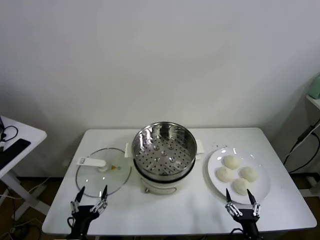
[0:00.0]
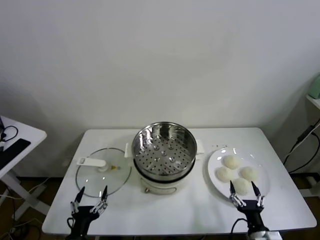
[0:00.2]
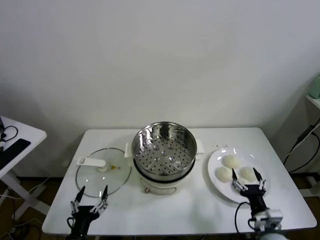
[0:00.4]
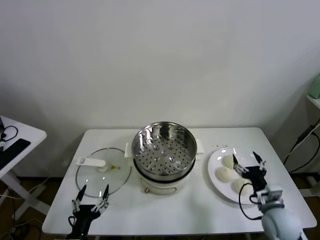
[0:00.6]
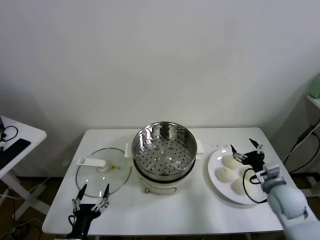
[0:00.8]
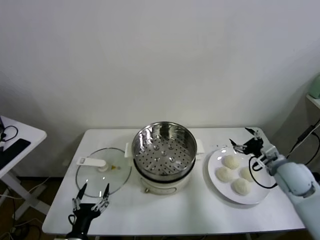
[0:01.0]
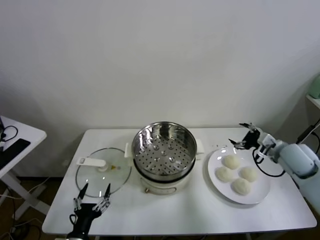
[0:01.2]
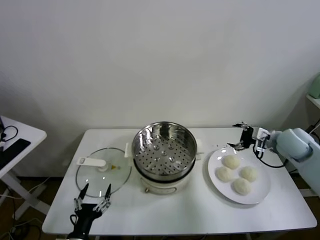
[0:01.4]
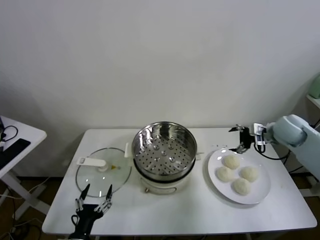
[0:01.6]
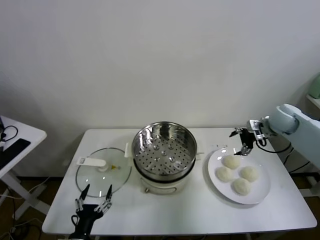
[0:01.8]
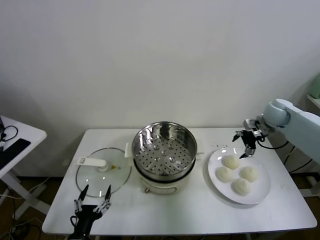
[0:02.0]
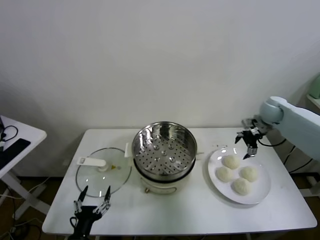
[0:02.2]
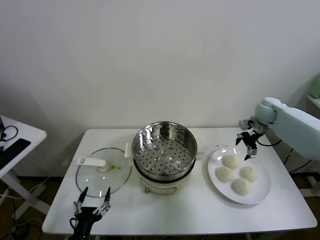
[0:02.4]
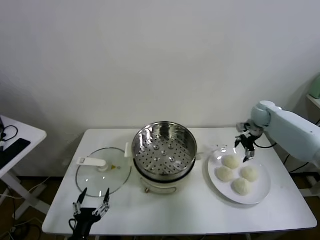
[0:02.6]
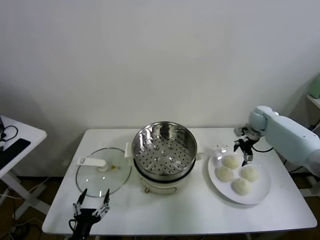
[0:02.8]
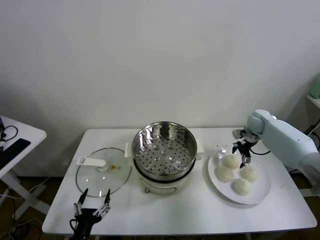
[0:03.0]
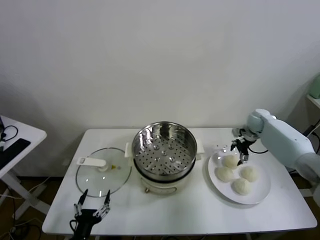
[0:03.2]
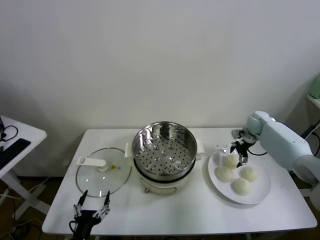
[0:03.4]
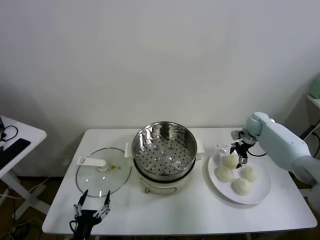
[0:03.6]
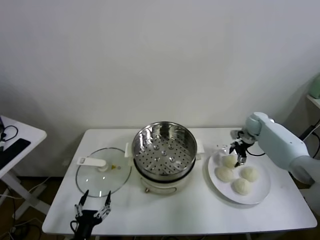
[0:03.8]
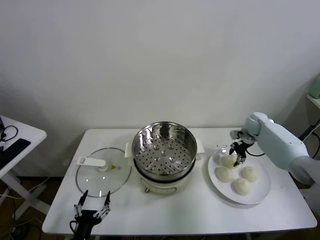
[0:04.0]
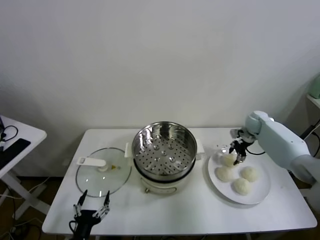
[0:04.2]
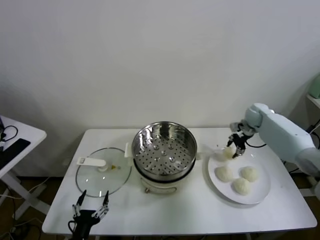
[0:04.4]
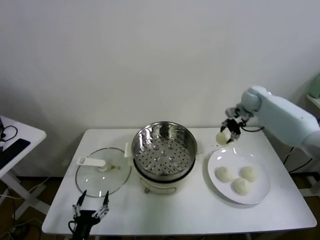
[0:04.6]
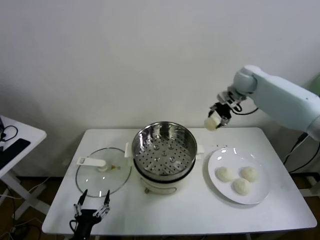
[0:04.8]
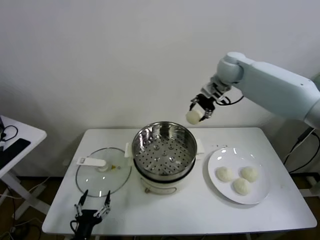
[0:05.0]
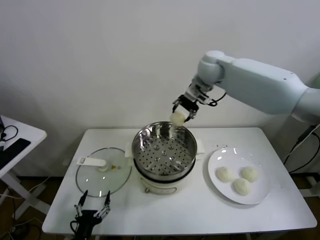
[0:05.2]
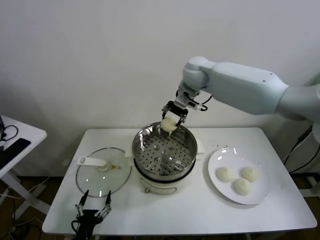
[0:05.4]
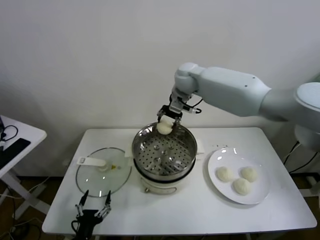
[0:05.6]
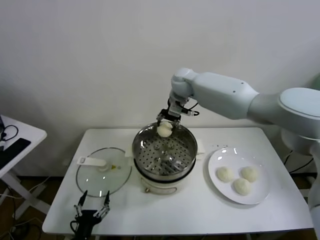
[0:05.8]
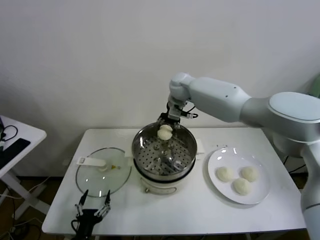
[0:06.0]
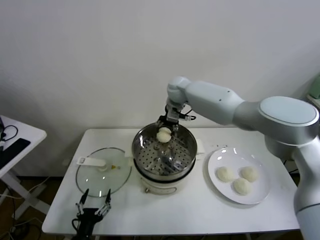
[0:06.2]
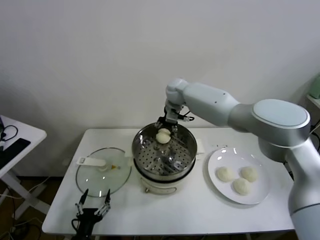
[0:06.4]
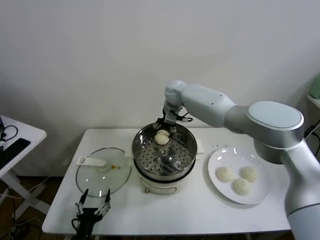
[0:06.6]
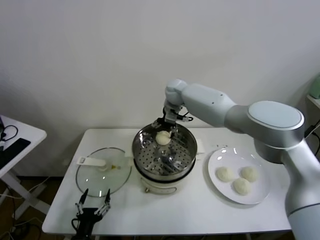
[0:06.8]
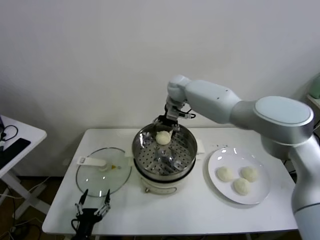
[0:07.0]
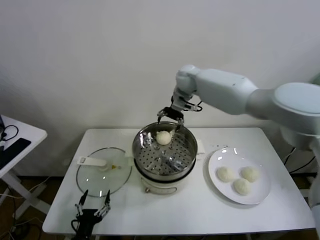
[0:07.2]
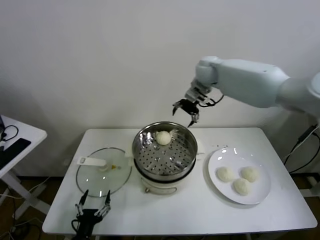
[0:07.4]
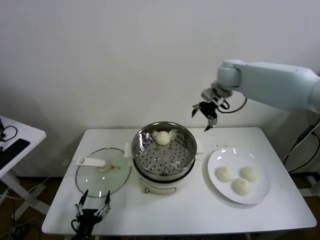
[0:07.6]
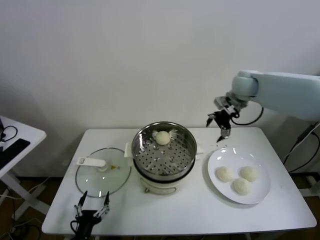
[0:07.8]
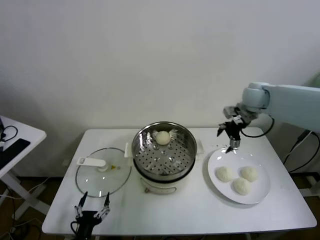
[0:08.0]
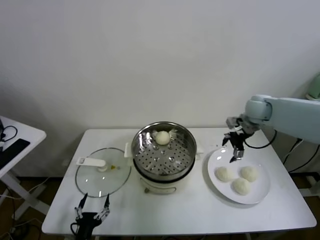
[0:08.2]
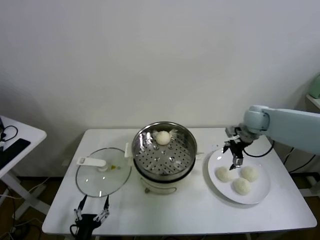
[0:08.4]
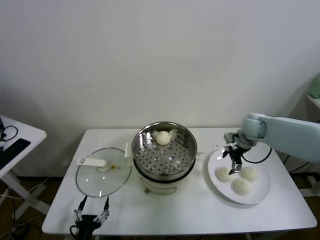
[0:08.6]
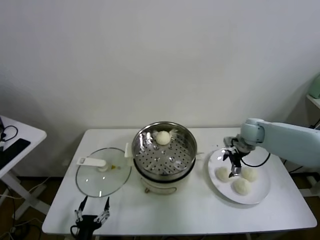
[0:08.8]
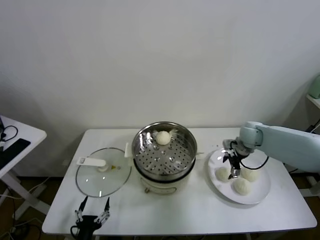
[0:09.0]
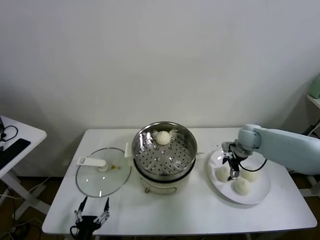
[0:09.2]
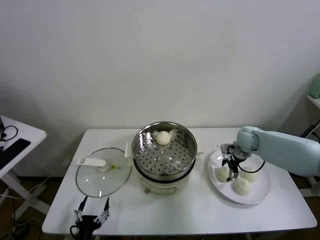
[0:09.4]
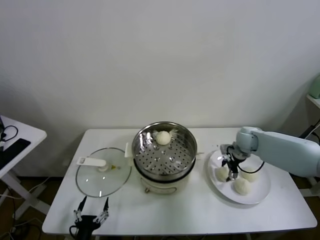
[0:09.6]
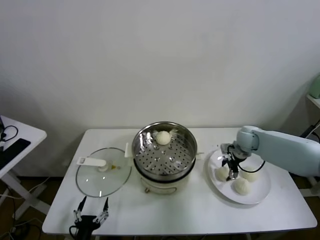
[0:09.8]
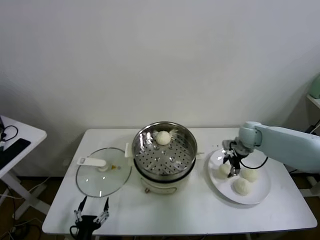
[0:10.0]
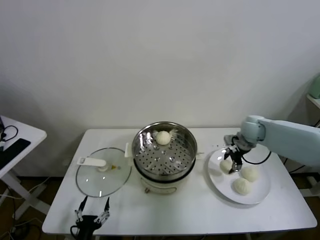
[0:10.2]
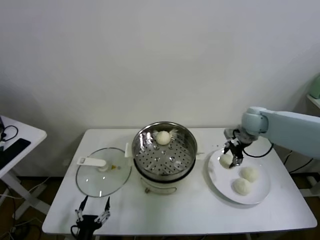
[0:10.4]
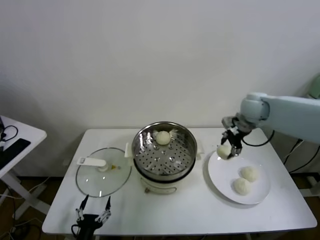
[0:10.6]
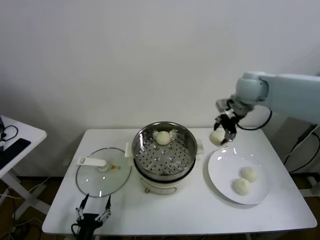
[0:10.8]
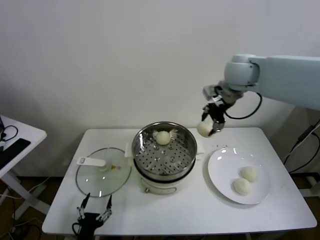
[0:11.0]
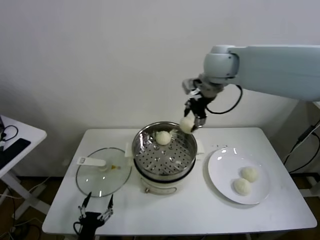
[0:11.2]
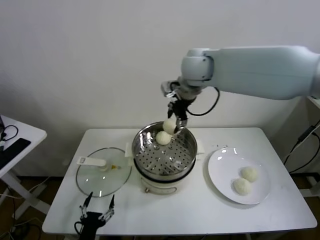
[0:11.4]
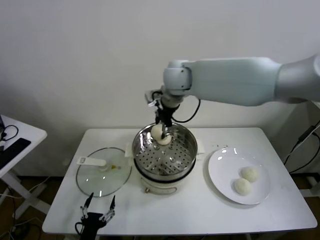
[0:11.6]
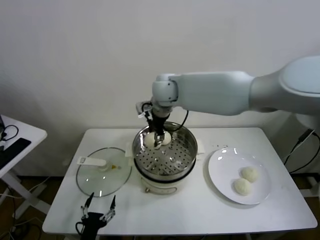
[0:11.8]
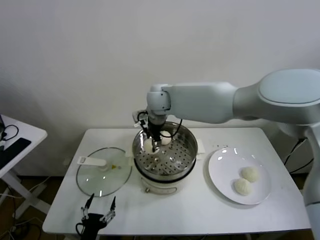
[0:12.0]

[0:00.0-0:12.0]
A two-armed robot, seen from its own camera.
Task of the whole recording: take steamed baozi put them in steamer.
Step, 0:00.0 to 0:03.8: Grasp the baozi in the plate with right gripper.
Step, 0:04.0 to 0:06.6: Place the baozi on the steamer with right gripper.
Step, 0:06.8 to 0:09.4: Grasp the baozi in the plate with right gripper.
0:01.6 to 0:03.0: The right gripper travels forward and downward by about 15 cm.
0:03.0 to 0:04.4: The right gripper heads upward, covering approximately 5 cm, and closes its fingers.
0:04.4 to 0:06.0: The right gripper travels to the left by some 30 cm.
0:06.0 to 0:07.6: The right gripper is displaced to the right by some 20 cm, and opens.
0:07.6 to 0:09.0: The right gripper shifts approximately 25 cm downward and to the right.
0:09.0 to 0:10.4: The right gripper is displaced upward by about 10 cm, and closes up.
0:10.4 to 0:12.0: The right gripper is displaced to the left by some 35 cm.

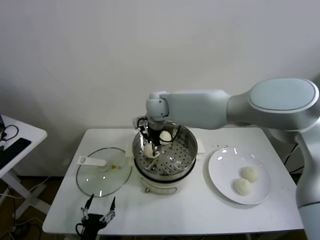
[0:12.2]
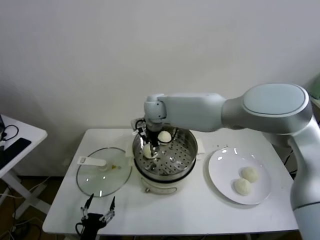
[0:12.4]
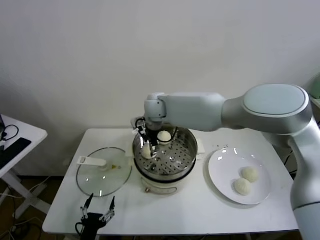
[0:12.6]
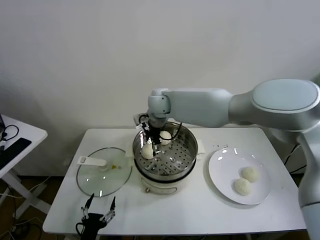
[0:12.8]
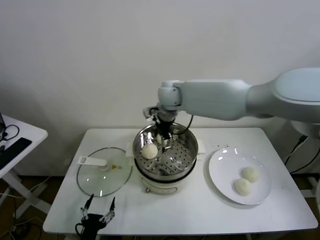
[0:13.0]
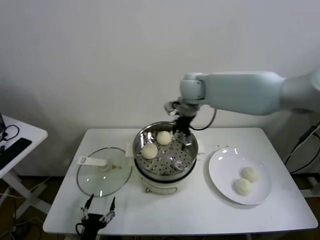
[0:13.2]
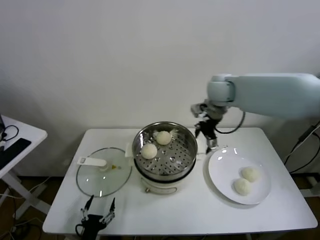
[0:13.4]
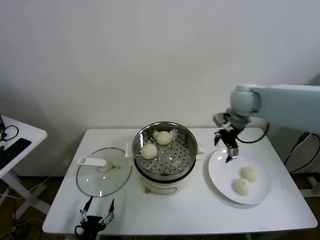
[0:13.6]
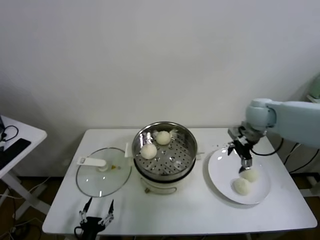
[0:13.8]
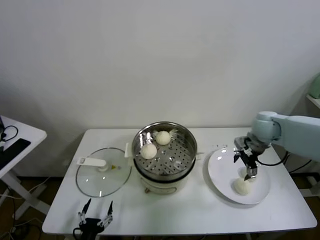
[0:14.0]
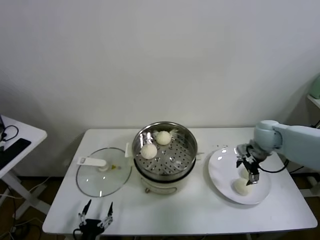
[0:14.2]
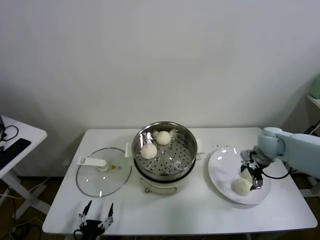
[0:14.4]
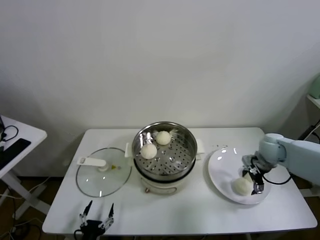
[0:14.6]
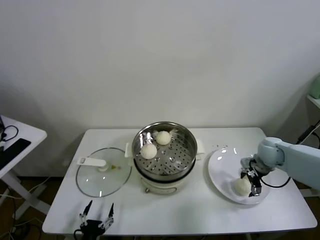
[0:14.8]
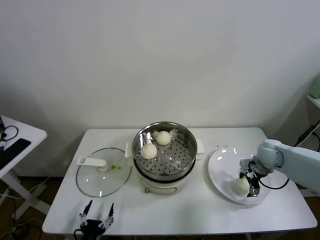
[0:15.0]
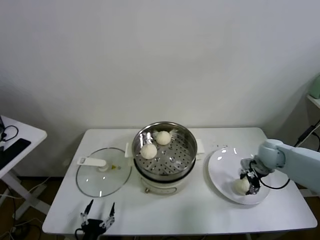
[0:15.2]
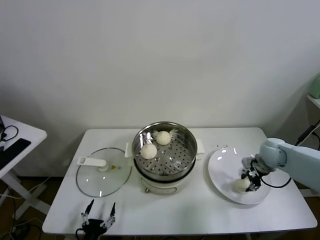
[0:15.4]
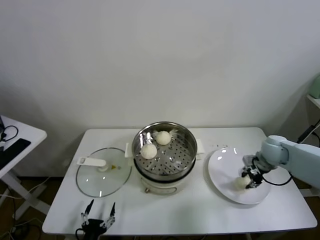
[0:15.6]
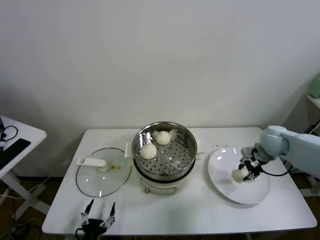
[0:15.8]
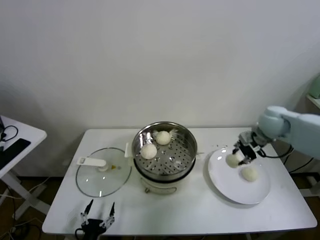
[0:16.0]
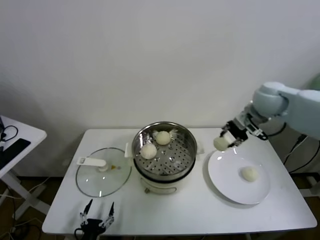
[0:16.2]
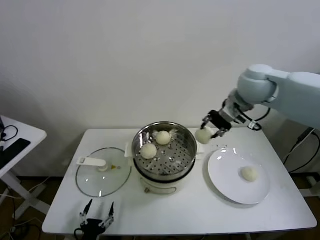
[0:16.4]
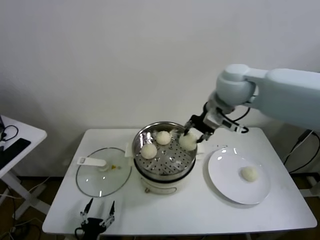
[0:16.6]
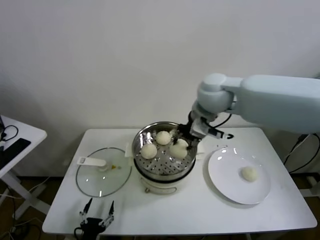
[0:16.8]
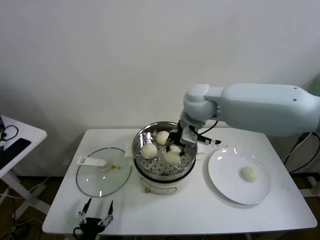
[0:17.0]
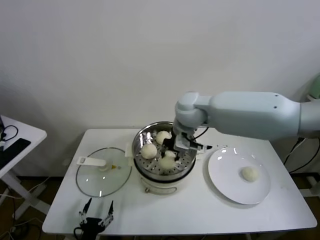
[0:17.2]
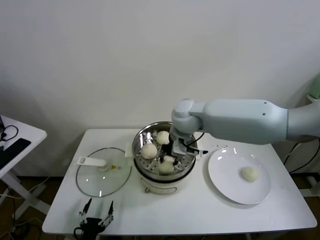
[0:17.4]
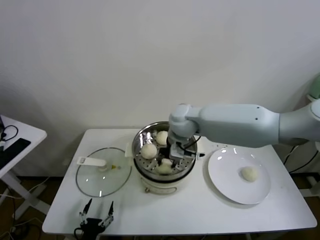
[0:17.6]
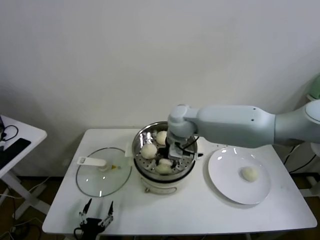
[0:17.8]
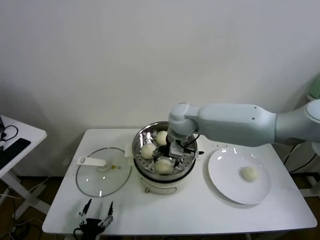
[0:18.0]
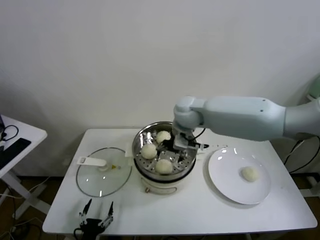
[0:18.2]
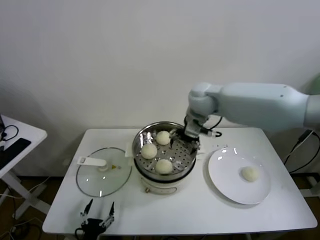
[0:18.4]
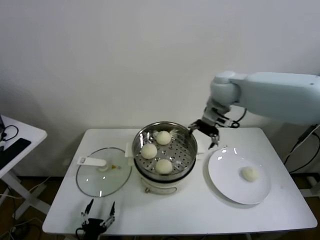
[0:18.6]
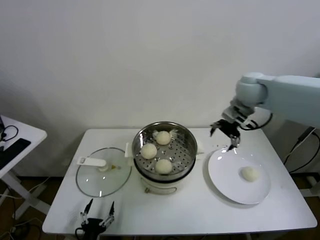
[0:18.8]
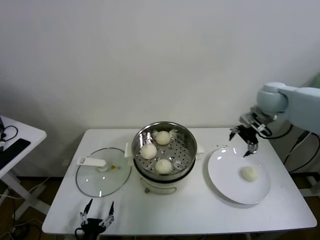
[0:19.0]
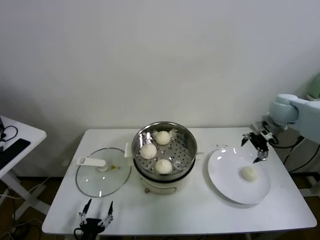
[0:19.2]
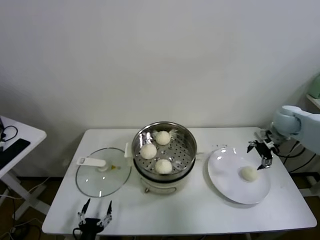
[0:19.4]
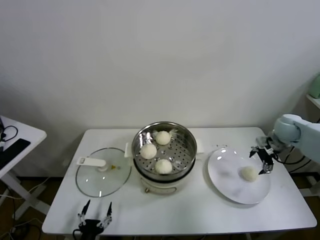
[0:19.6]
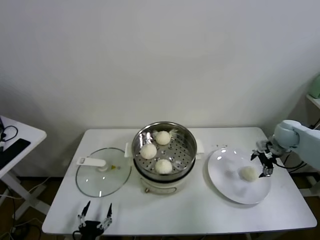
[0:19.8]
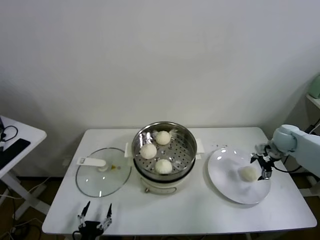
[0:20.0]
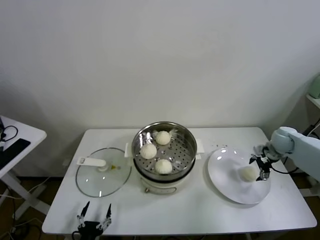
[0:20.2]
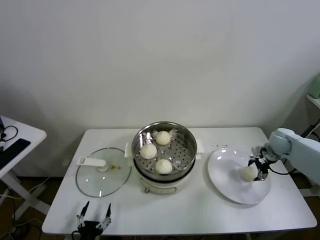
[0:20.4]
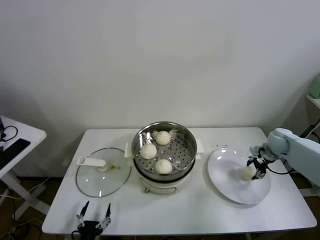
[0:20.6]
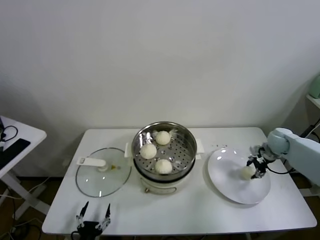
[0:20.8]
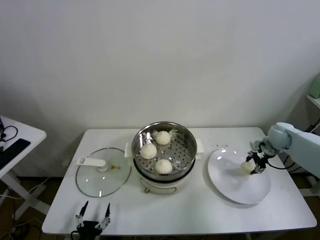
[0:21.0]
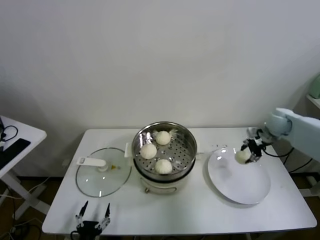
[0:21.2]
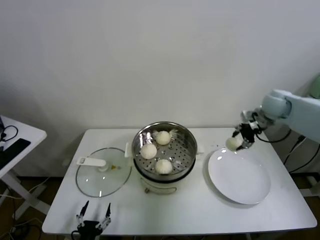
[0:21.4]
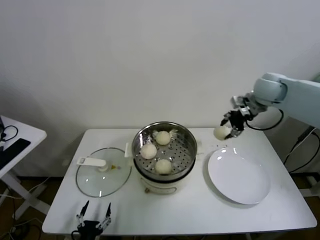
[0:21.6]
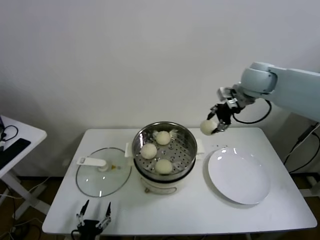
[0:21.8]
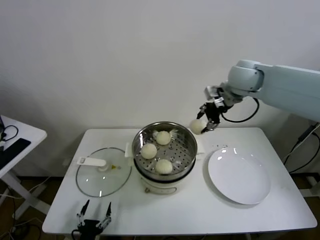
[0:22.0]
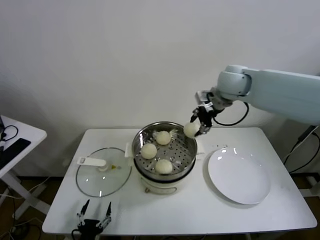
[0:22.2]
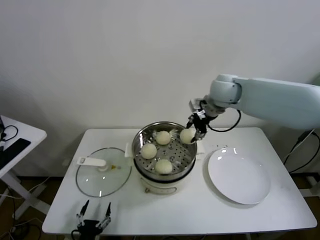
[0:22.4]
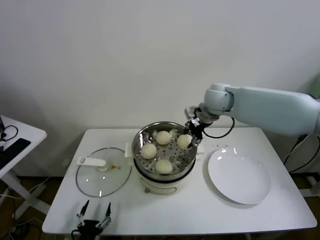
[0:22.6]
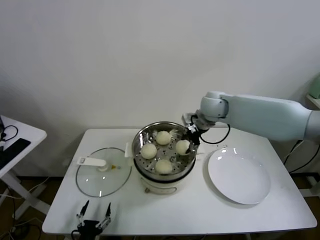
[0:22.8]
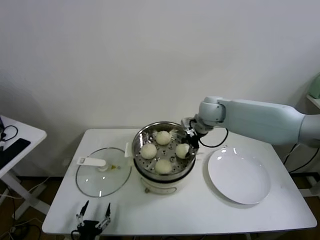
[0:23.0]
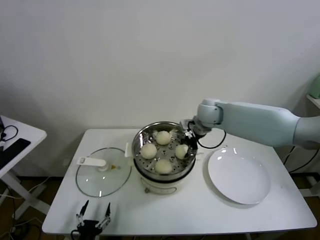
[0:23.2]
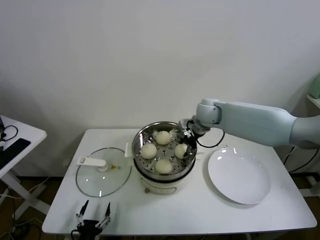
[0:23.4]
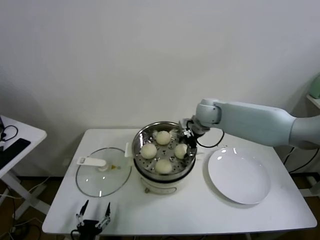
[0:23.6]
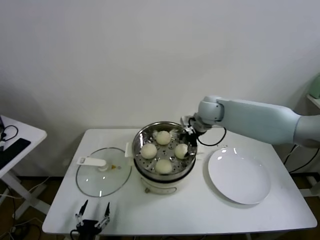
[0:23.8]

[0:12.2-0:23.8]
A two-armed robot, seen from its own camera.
Task of the whole recording: take steamed baozi put them in steamer.
Step, 0:12.8 to 0:15.2: Grasp the baozi in the plate with right gripper.
Step, 0:15.4 to 0:17.8: Place the baozi on the steamer with right gripper.
Step, 0:18.0 to 0:20.4: Grasp the baozi in the plate with right gripper.
Step, 0:20.6 to 0:23.6: Place the baozi on the steamer with right gripper.
0:12.2 to 0:13.6: The right gripper travels to the right by some 30 cm, and opens its fingers.
0:13.6 to 0:15.0: The right gripper shifts about 25 cm downward and to the right.
0:15.0 to 0:16.6: The right gripper shifts approximately 35 cm upward and to the left, and closes.
0:16.6 to 0:18.0: The right gripper goes about 20 cm downward and to the left, and opens up.
0:18.0 to 0:19.4: The right gripper shifts approximately 35 cm to the right.
0:19.4 to 0:21.0: The right gripper moves downward, about 10 cm, and closes up.
0:21.0 to 0:22.4: The right gripper is displaced to the left and upward by roughly 35 cm.
0:22.4 to 0:23.8: The right gripper moves downward, about 10 cm, and opens.
